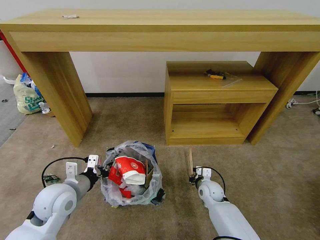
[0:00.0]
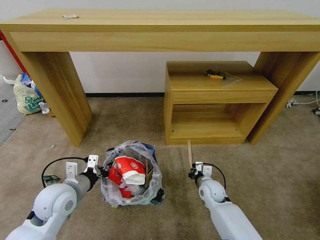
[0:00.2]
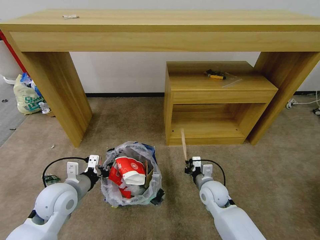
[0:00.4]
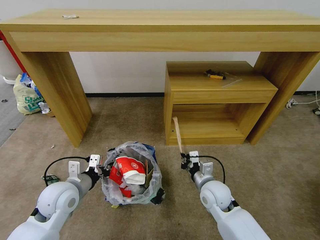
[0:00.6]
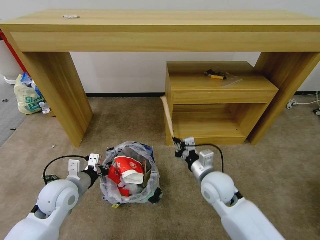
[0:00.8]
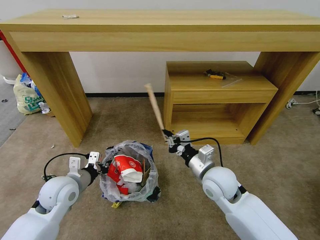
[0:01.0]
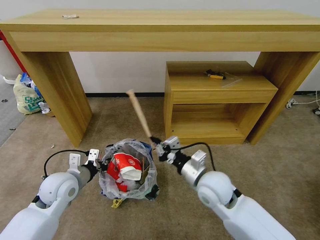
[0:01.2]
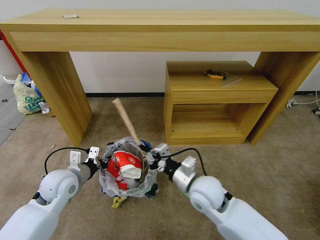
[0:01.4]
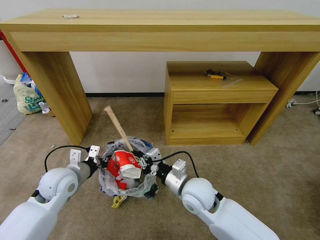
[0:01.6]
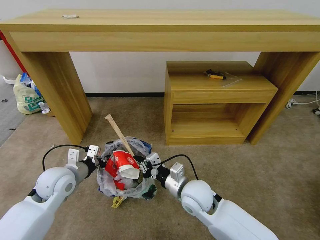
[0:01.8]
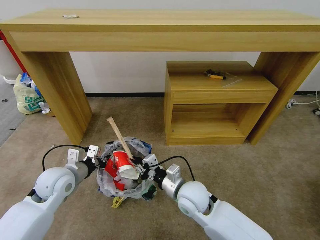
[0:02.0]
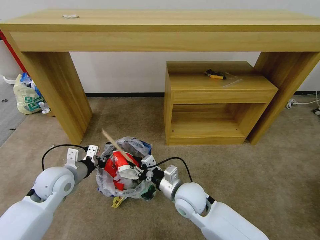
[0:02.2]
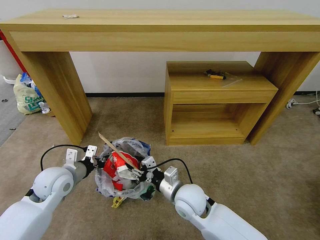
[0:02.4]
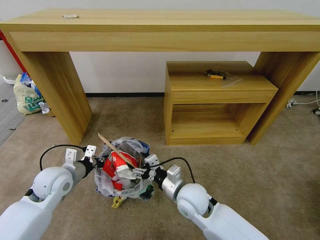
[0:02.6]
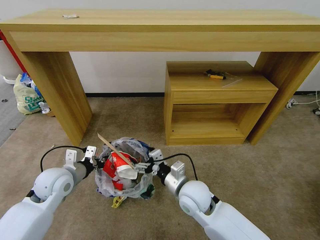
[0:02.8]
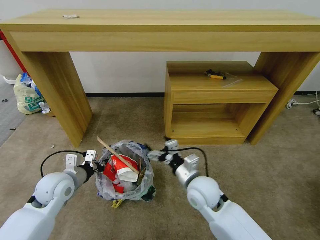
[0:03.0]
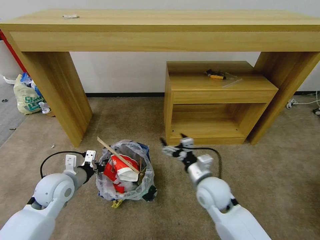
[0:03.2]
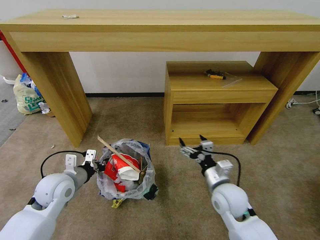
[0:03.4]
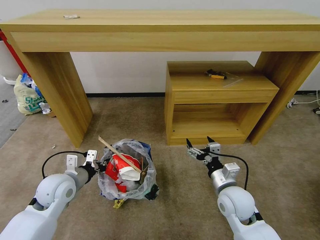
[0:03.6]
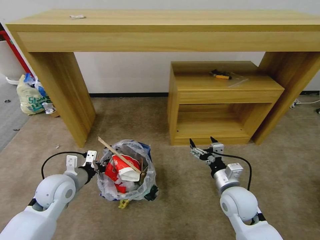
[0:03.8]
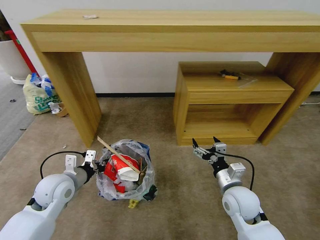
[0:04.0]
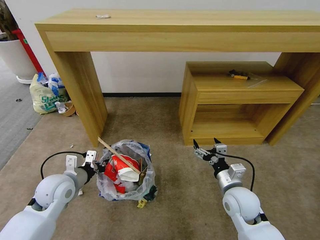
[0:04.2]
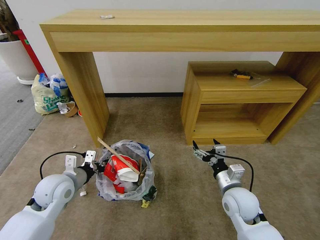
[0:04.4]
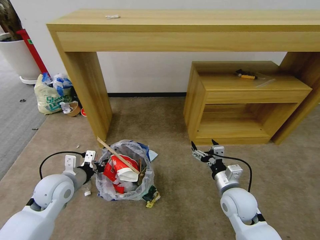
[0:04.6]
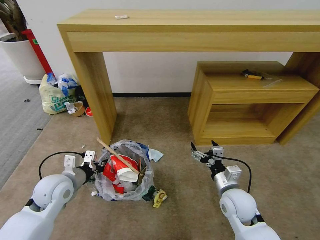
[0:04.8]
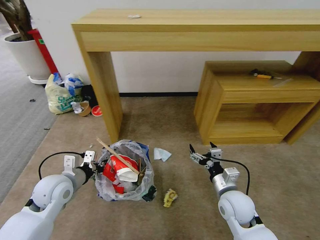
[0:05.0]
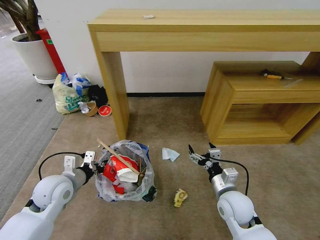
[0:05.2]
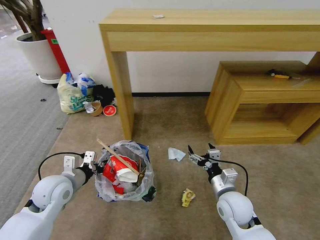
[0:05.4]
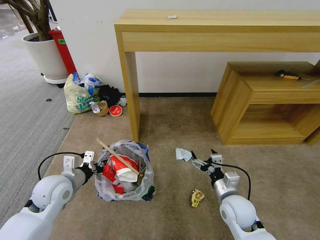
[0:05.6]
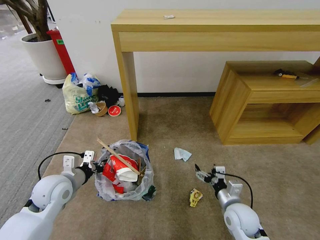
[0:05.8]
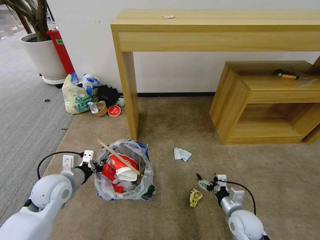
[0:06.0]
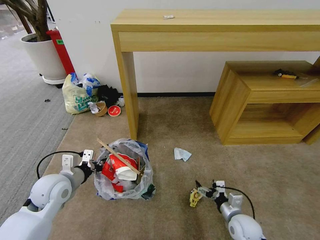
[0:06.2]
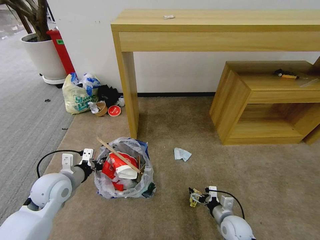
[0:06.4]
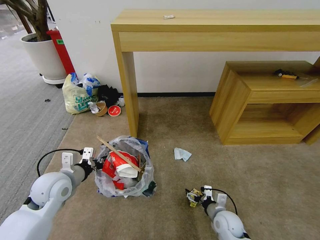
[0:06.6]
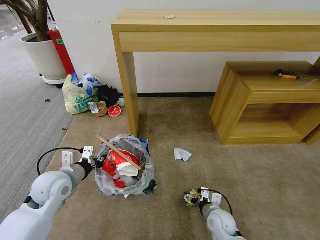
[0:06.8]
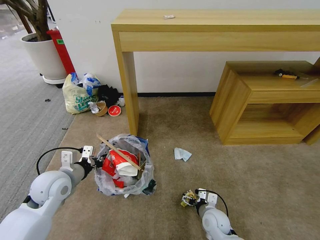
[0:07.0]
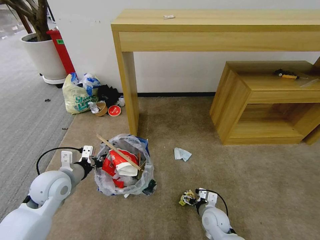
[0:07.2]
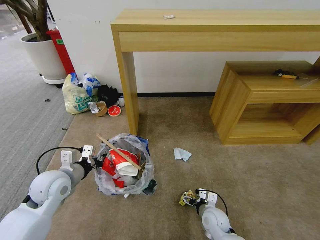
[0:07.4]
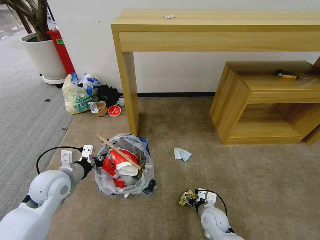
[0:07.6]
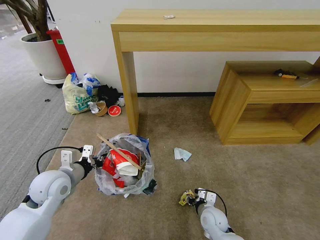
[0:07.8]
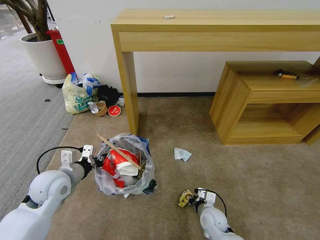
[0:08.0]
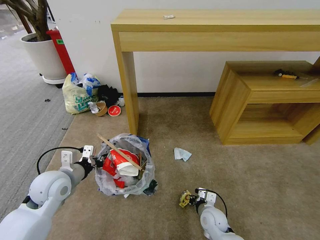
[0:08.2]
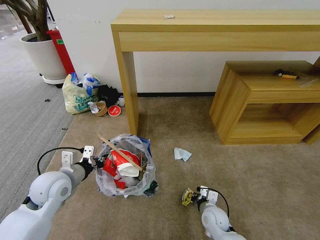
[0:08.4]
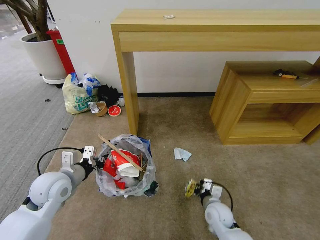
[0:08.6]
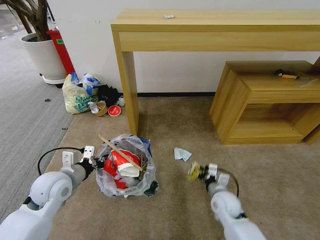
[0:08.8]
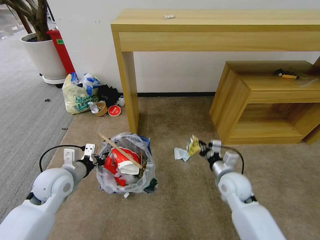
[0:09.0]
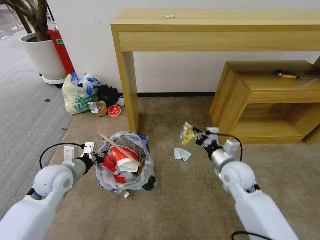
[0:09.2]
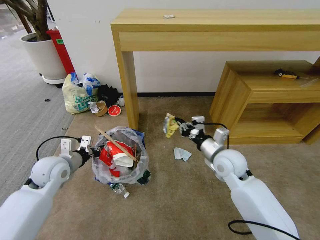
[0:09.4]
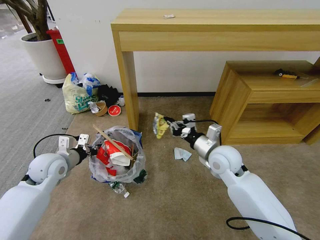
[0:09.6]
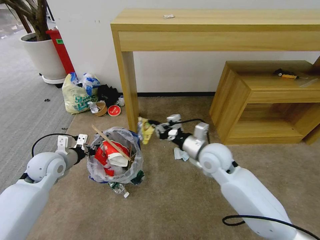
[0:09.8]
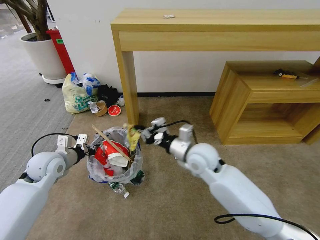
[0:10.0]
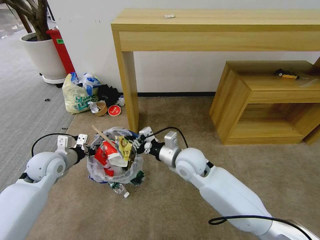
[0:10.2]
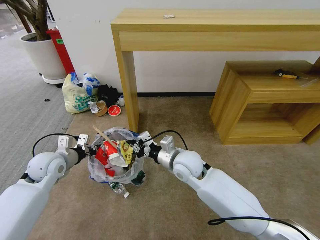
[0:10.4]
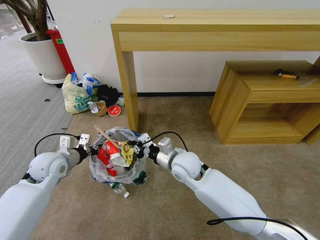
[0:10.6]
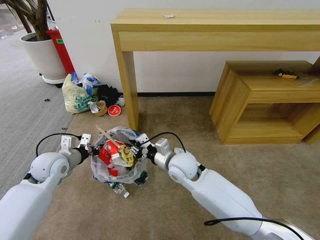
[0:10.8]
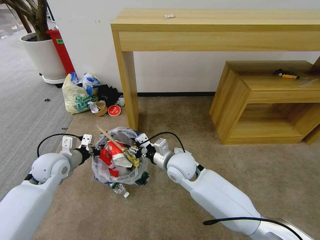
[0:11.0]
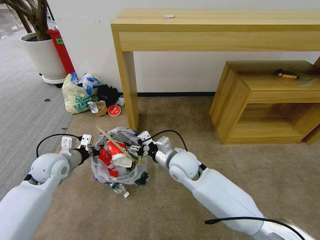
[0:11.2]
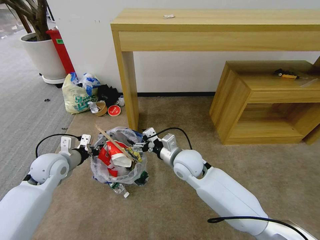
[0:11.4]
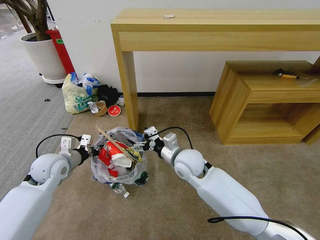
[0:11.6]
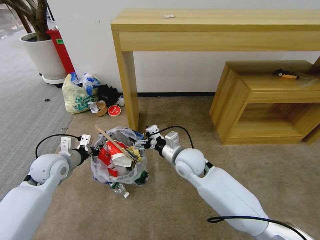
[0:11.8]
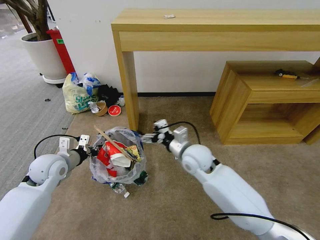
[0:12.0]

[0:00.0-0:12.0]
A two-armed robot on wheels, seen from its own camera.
Task of the whole recording: Pick up the trash bin and place the garbage on the floor into it.
0:00.0 to 0:01.6: The right gripper shifts some 25 cm upward, to the left and backward. Meanwhile the left gripper heads forward, covering roughly 5 cm.
0:01.6 to 0:03.0: The right gripper opens up.
0:03.0 to 0:04.4: The right gripper shifts approximately 15 cm to the right.
0:04.4 to 0:06.0: The right gripper moves downward, roughly 10 cm.
0:06.0 to 0:07.6: The right gripper travels to the left and downward by approximately 10 cm.
0:07.6 to 0:09.0: The right gripper moves upward and forward, approximately 15 cm, and closes its fingers.
0:09.0 to 0:10.4: The left gripper travels forward and to the left by about 10 cm. Meanwhile the right gripper goes approximately 20 cm to the left and upward.
0:10.4 to 0:12.0: The right gripper opens its fingers.

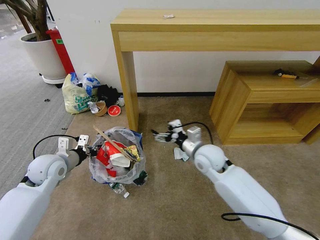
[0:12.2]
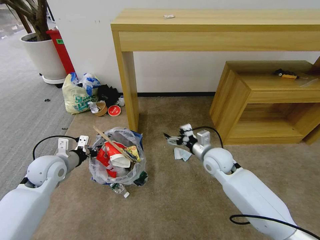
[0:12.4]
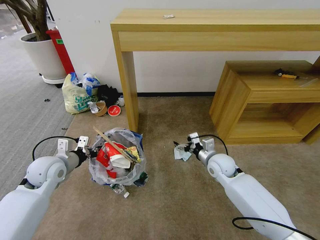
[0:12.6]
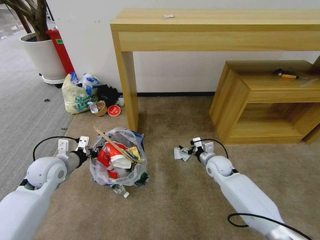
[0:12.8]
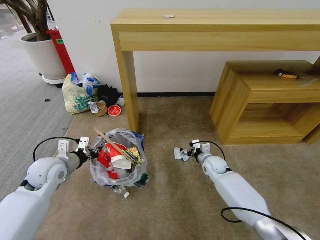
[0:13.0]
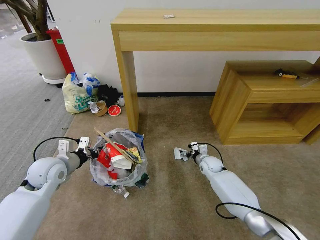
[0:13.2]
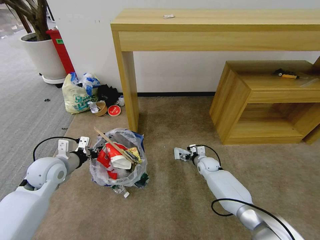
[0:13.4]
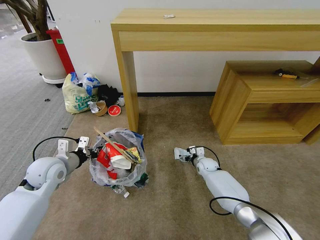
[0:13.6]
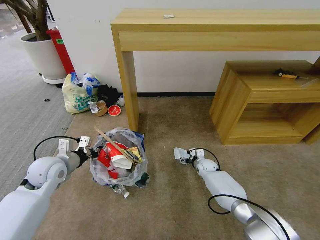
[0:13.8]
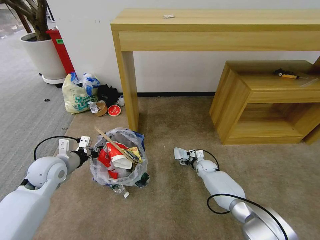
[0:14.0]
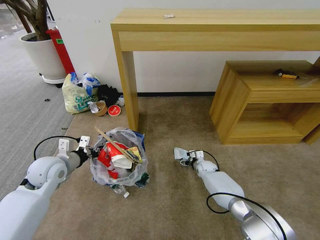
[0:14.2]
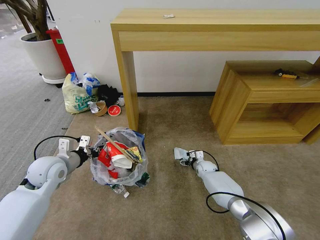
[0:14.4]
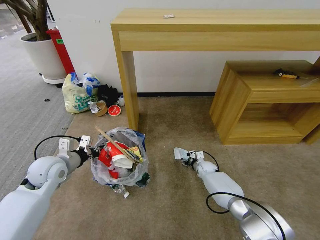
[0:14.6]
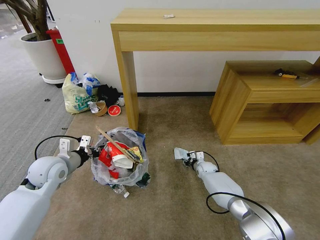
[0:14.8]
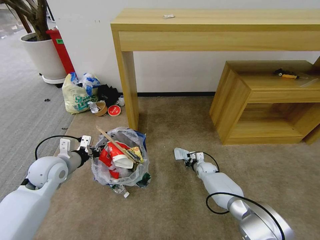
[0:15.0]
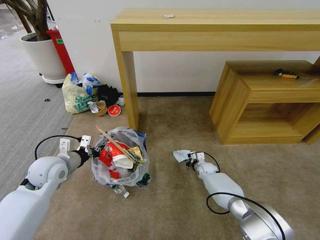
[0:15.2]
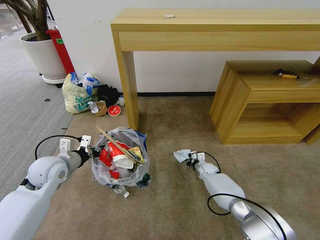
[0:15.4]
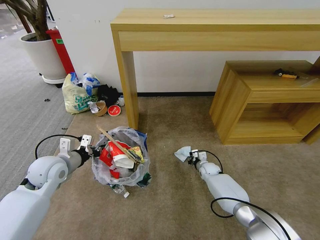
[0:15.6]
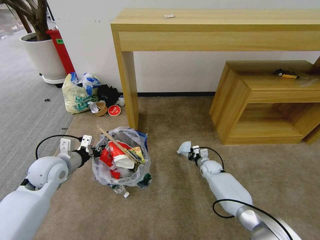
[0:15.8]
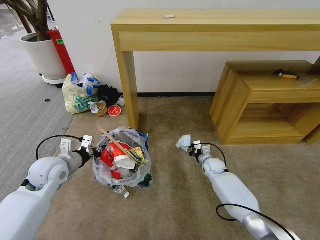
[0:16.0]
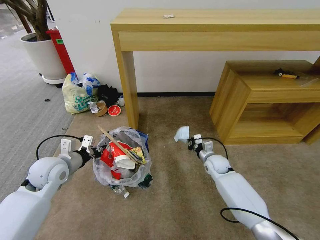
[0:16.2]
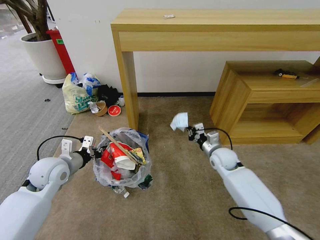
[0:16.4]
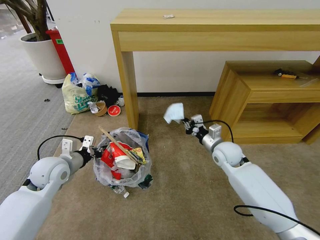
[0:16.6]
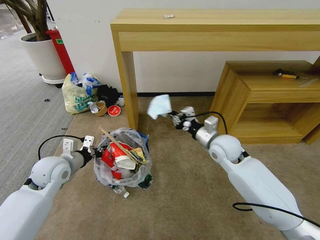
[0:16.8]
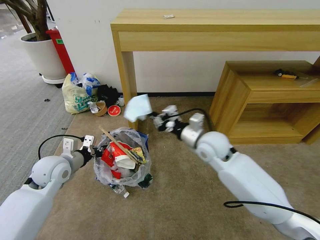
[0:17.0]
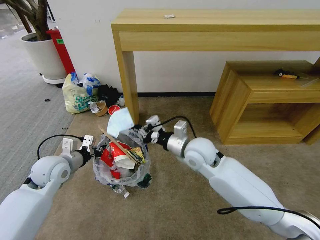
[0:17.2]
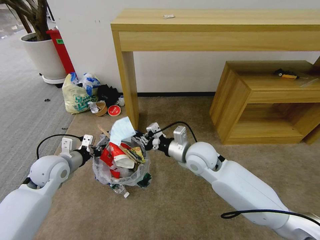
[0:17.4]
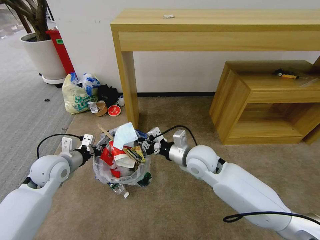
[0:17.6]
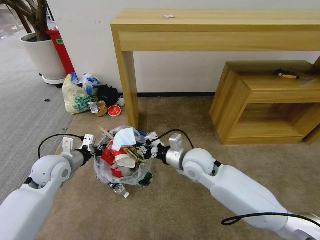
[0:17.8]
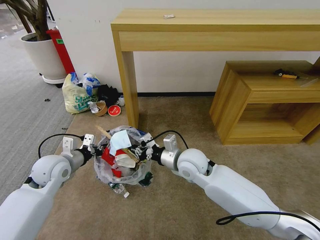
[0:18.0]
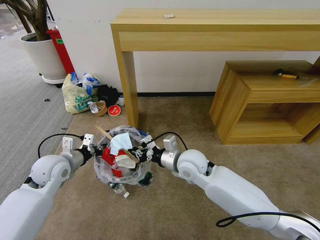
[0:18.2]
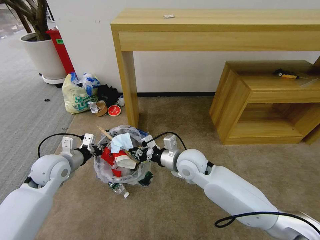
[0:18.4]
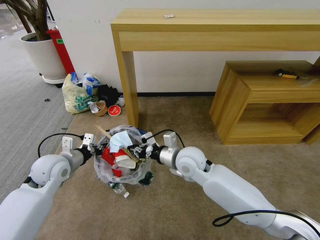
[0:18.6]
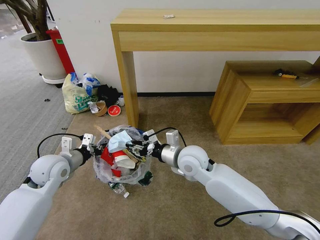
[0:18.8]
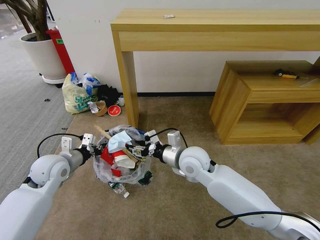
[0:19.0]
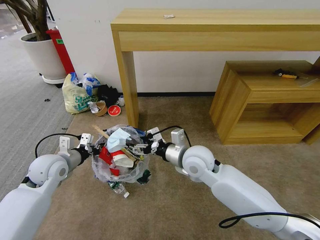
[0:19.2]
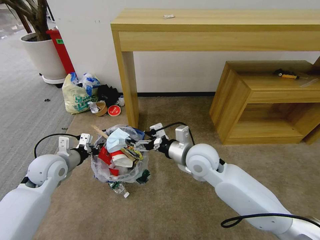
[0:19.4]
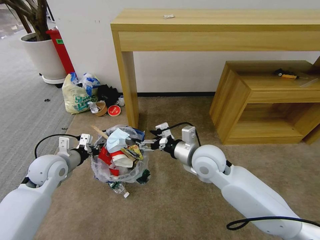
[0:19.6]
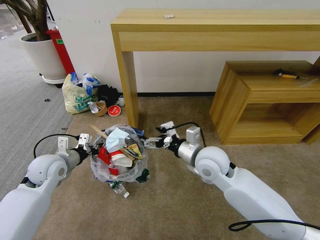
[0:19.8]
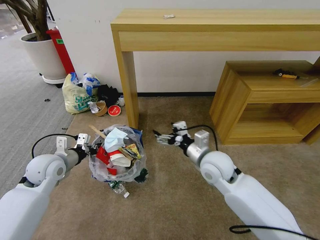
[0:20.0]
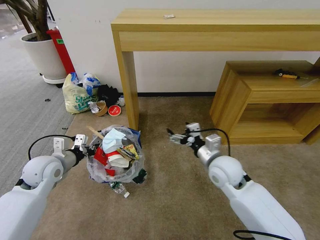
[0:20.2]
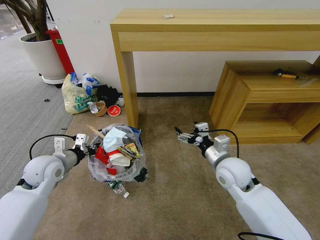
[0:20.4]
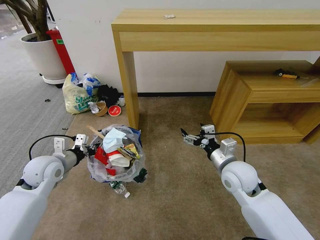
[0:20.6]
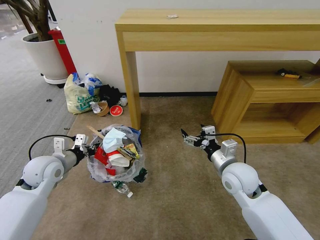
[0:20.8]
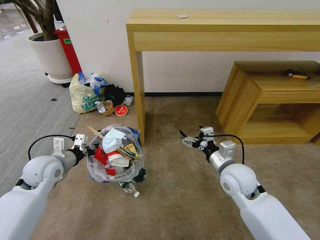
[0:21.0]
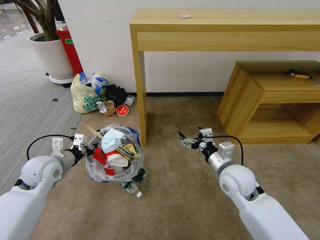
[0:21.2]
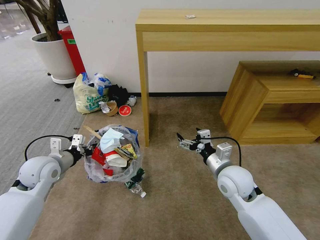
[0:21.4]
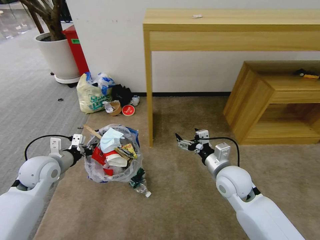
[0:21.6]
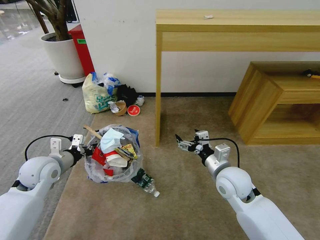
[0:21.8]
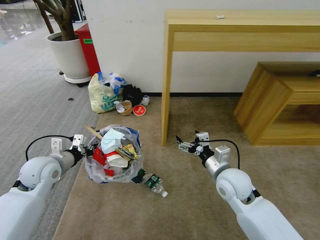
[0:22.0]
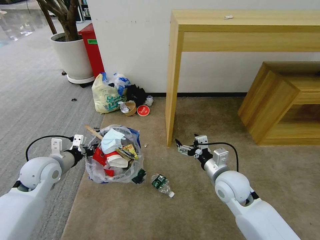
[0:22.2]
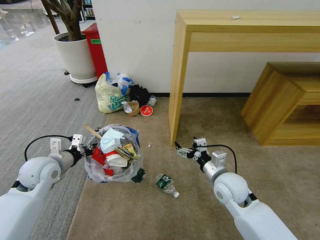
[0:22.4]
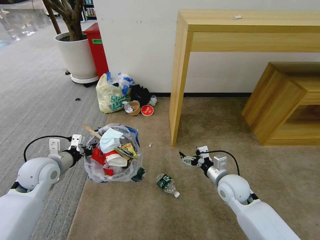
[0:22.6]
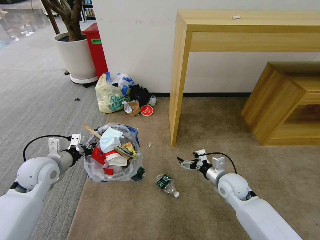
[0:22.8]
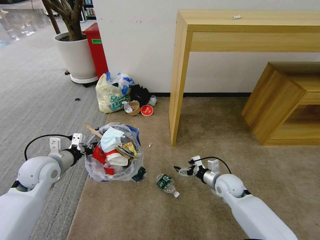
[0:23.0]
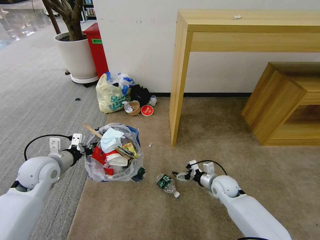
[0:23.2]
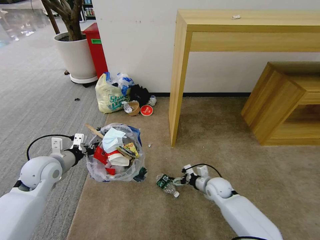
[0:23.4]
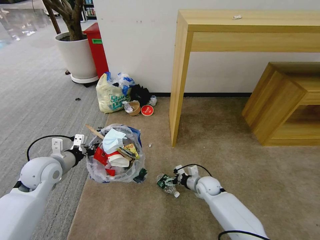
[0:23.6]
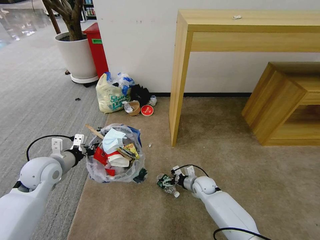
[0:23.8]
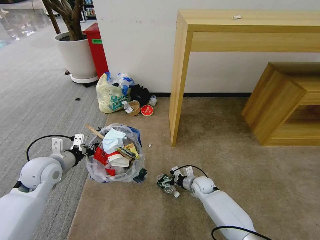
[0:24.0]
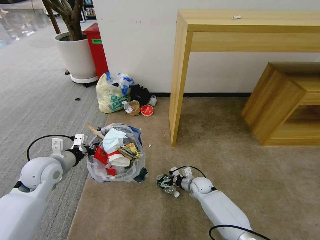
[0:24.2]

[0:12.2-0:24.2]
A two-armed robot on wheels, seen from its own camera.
Task of the whole recording: Pick up the trash bin and place the garbage on the floor into it.
0:12.2 to 0:13.8: The right gripper shifts approximately 25 cm downward and forward.
0:13.8 to 0:15.2: The right gripper closes its fingers.
0:15.2 to 0:16.6: The right gripper is displaced upward by some 25 cm.
0:16.6 to 0:18.2: The right gripper goes some 15 cm to the left and backward.
0:18.2 to 0:19.8: The right gripper travels to the right by about 5 cm, and opens up.
0:19.8 to 0:21.2: The right gripper moves to the right, approximately 10 cm.
0:21.2 to 0:22.6: The right gripper travels downward by approximately 5 cm.
0:22.6 to 0:24.2: The right gripper heads downward and forward, covering roughly 20 cm.
